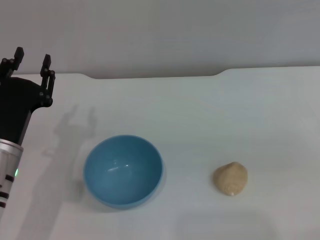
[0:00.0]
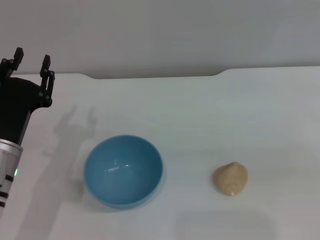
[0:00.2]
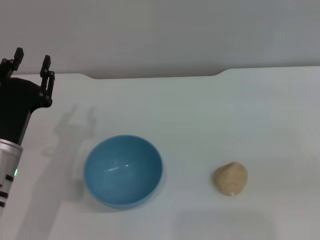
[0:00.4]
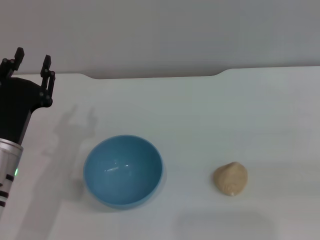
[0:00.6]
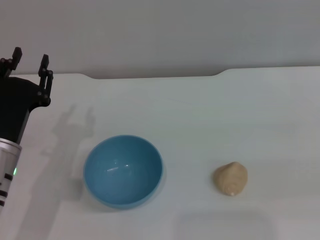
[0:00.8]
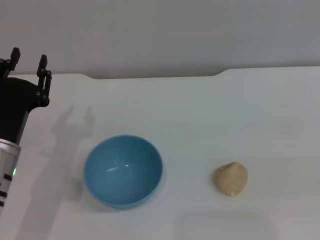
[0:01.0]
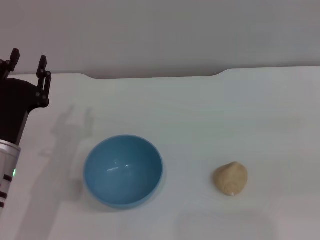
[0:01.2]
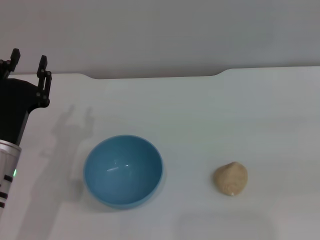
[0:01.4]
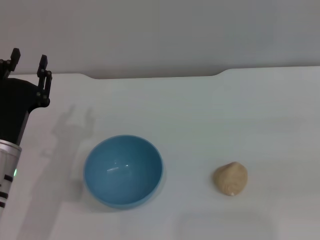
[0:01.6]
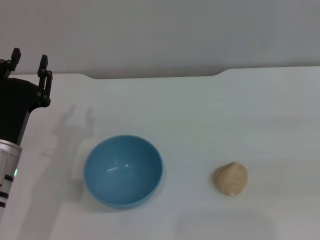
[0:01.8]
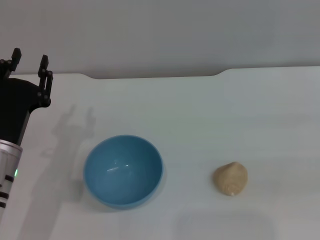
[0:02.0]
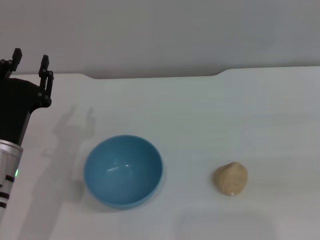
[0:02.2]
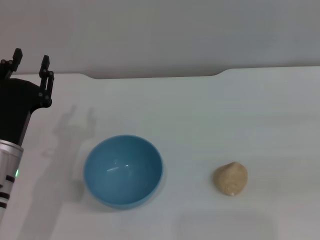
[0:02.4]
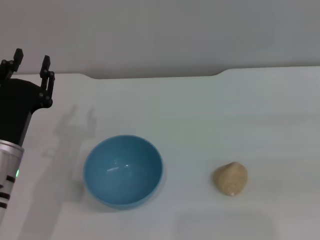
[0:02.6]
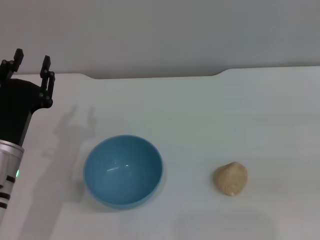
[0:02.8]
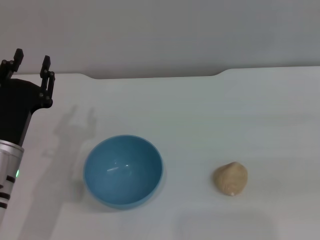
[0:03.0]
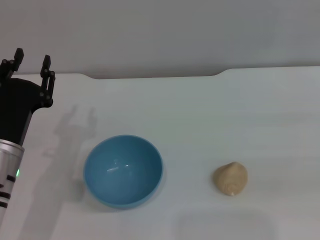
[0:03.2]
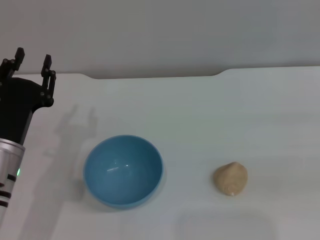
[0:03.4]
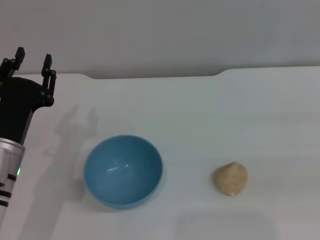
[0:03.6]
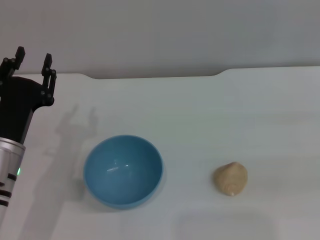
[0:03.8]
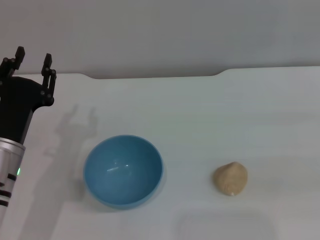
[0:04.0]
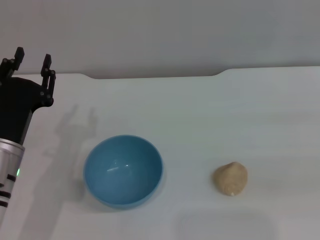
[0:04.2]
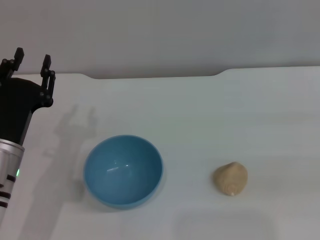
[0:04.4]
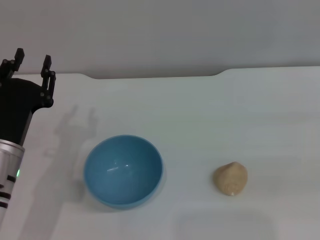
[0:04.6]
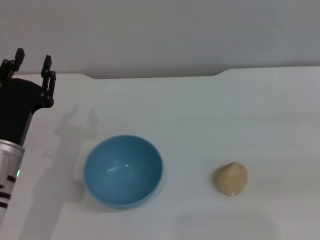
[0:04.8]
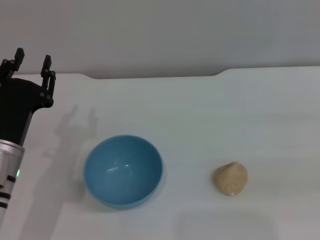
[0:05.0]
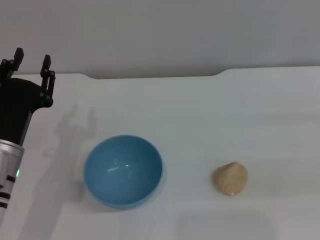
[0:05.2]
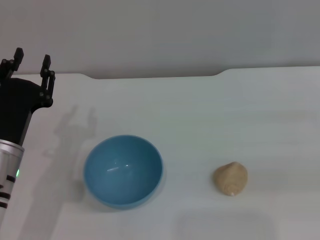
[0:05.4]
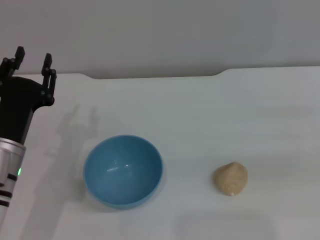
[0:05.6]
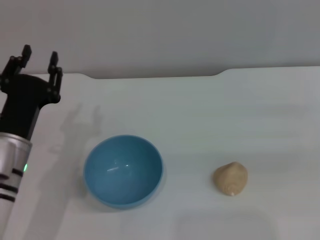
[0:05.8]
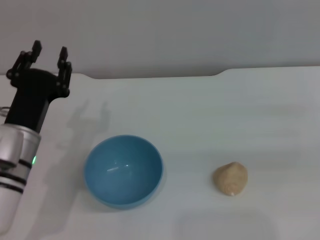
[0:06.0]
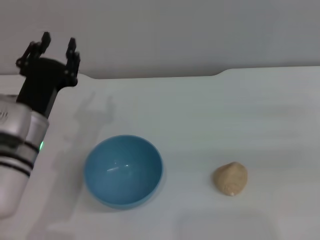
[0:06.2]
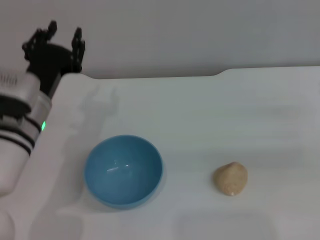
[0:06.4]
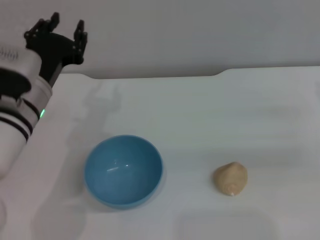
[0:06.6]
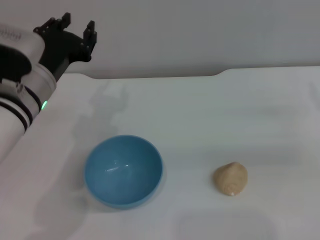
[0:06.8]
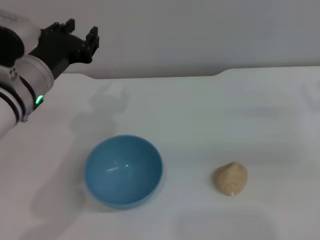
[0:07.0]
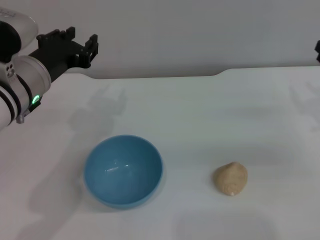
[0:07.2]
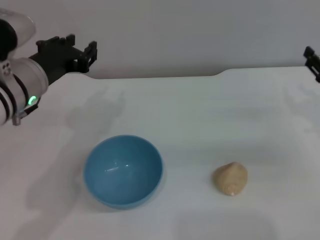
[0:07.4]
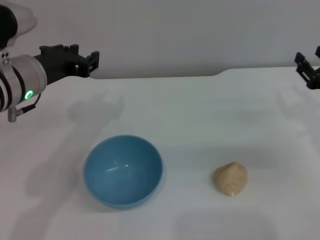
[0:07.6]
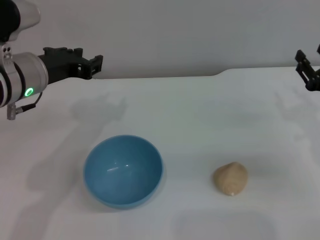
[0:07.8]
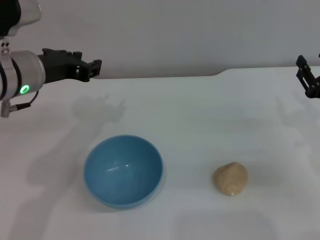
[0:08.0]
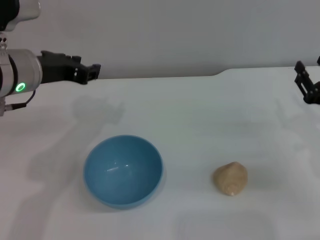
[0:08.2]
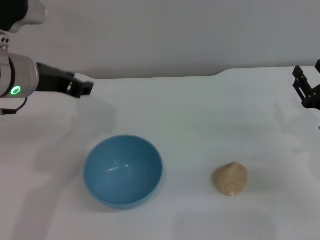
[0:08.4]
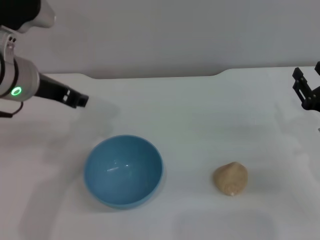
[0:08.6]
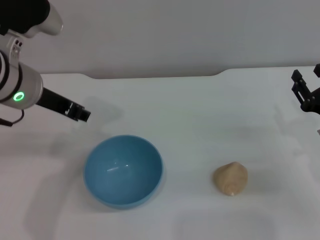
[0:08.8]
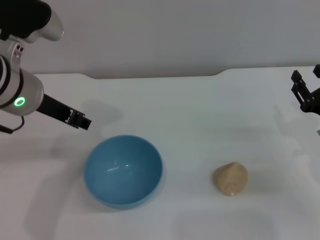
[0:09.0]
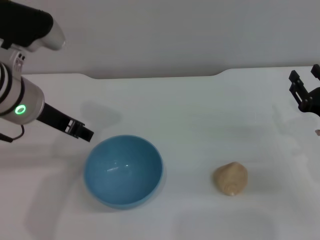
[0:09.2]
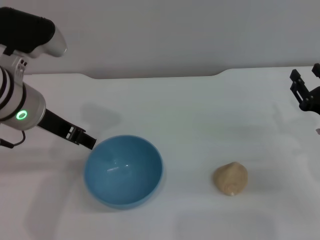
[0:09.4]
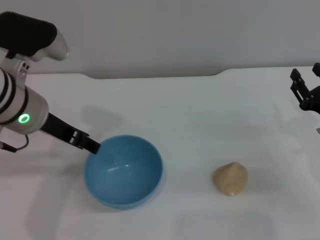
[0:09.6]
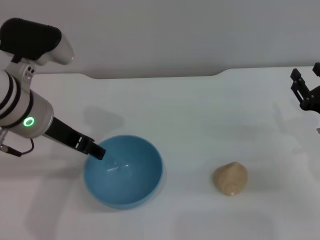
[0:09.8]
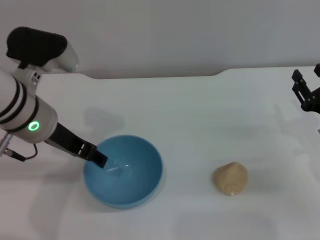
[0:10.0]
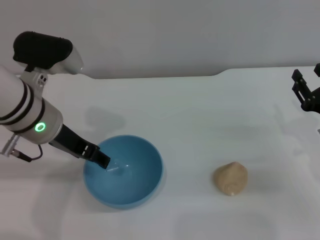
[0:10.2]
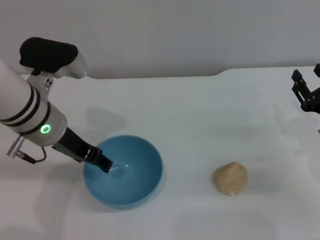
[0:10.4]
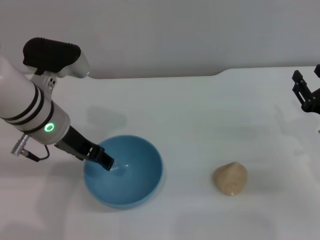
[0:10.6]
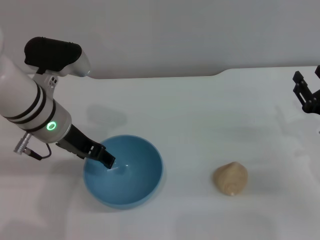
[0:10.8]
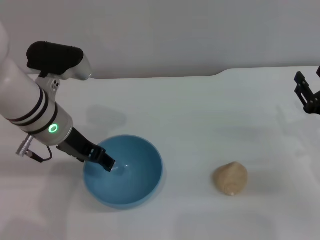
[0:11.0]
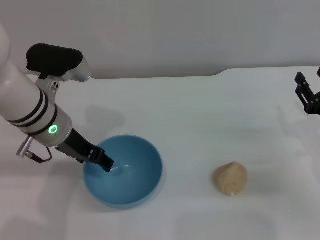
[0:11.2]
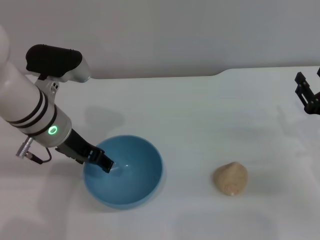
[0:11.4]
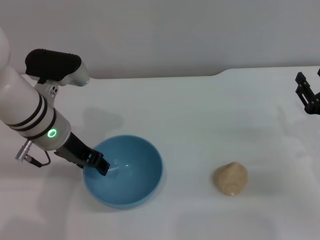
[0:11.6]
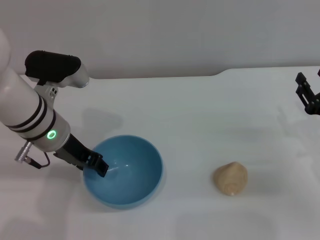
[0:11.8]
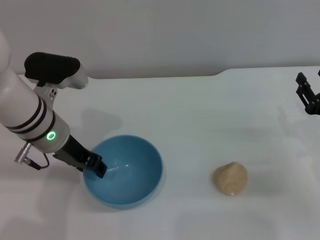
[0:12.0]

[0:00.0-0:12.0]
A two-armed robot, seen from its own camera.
Task of the whole recording: put the egg yolk pastry into the blue bowl and pour it out repeatedly.
0:01.6 to 0:03.0: The grippers make only small movements.
0:03.0 to 0:04.4: The two grippers keep their place.
0:06.0 to 0:07.6: The right gripper shifts some 10 cm to the left and downward. Meanwhile the left gripper is displaced upward and forward by about 10 cm.
0:07.6 to 0:09.0: The right gripper changes place by about 5 cm.
0:09.0 to 0:10.4: The left gripper travels downward by roughly 5 cm, and opens up.
0:10.4 to 0:12.0: The grippers move only a little.

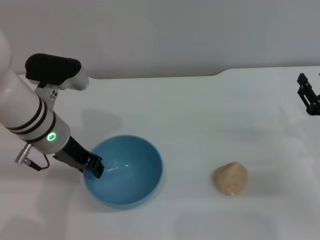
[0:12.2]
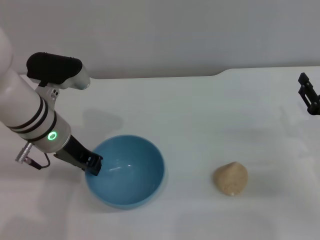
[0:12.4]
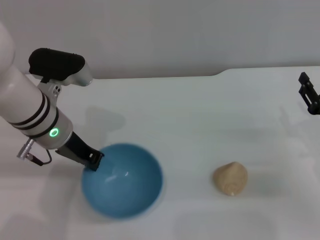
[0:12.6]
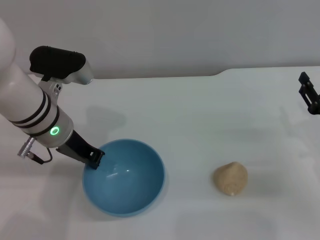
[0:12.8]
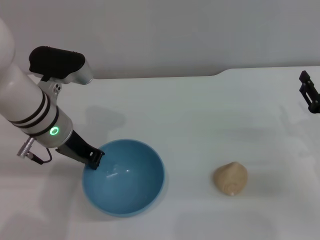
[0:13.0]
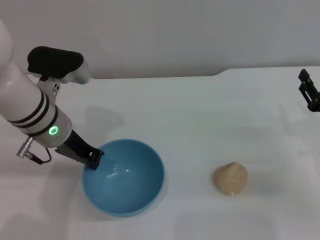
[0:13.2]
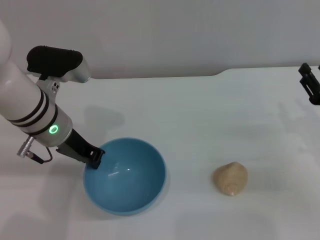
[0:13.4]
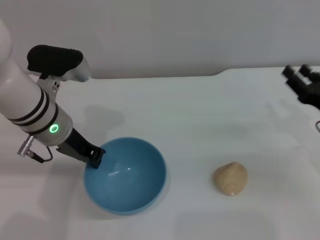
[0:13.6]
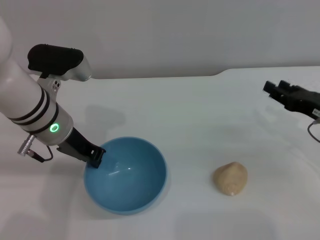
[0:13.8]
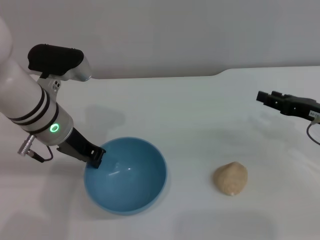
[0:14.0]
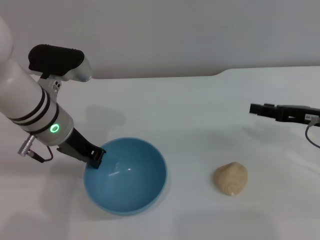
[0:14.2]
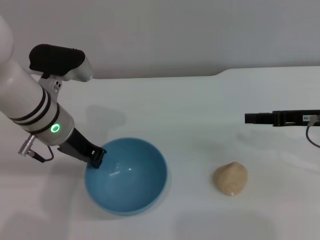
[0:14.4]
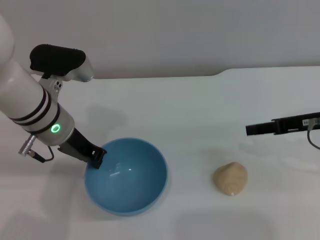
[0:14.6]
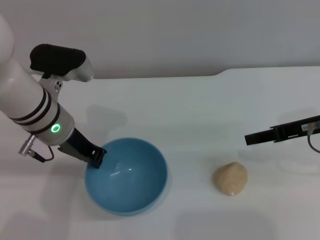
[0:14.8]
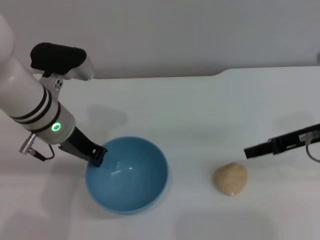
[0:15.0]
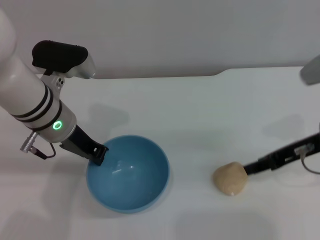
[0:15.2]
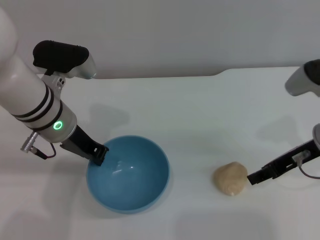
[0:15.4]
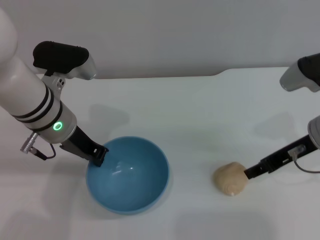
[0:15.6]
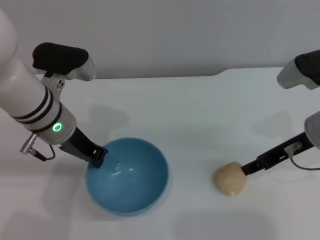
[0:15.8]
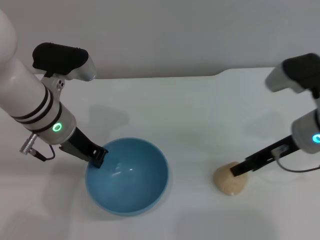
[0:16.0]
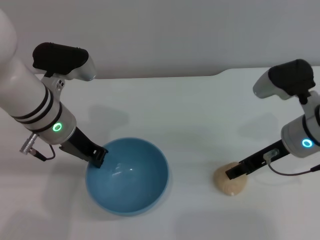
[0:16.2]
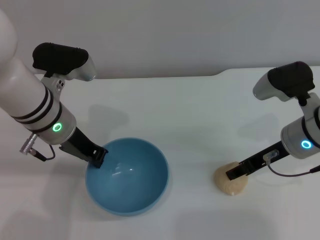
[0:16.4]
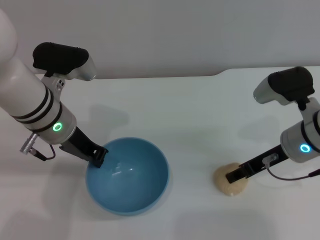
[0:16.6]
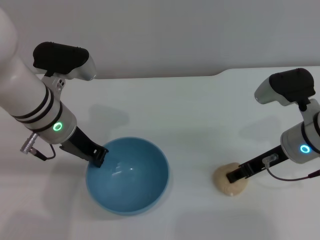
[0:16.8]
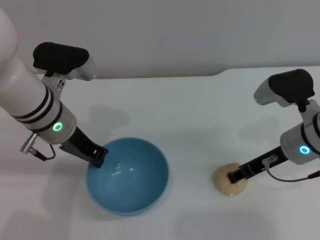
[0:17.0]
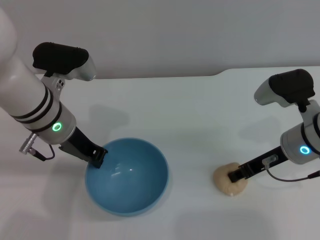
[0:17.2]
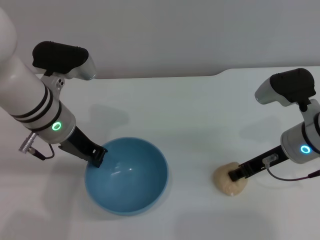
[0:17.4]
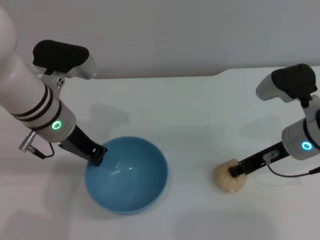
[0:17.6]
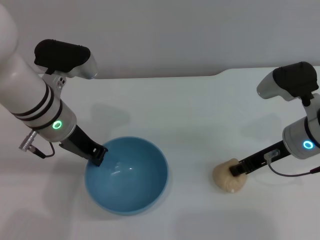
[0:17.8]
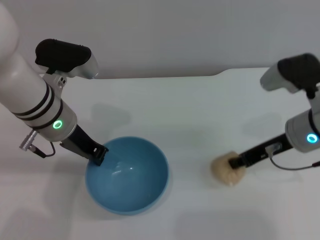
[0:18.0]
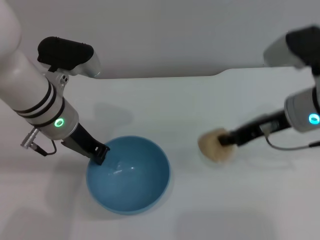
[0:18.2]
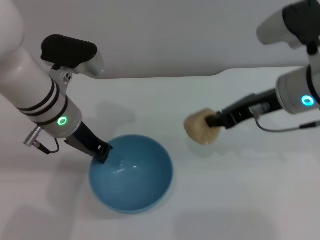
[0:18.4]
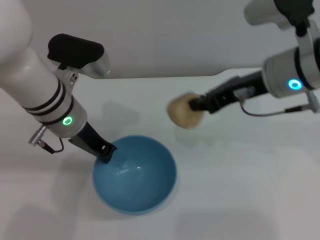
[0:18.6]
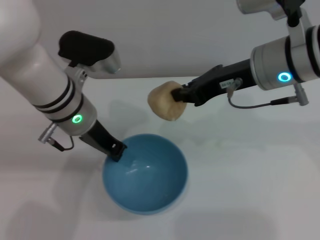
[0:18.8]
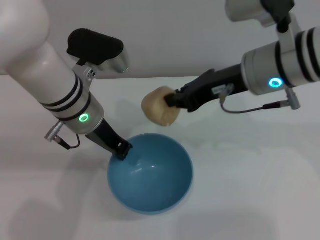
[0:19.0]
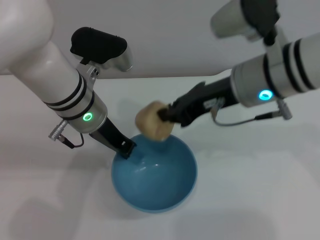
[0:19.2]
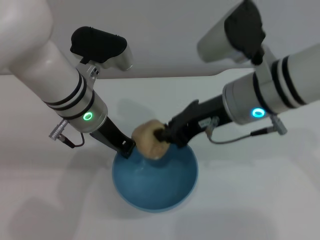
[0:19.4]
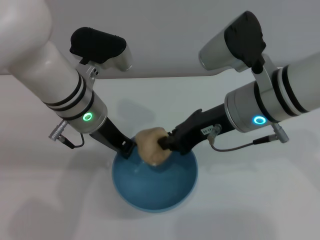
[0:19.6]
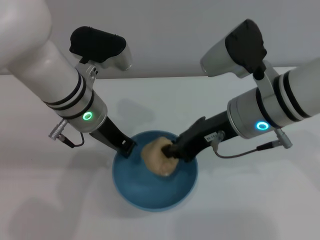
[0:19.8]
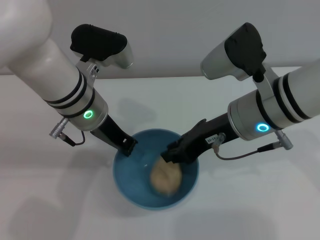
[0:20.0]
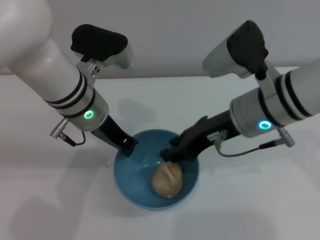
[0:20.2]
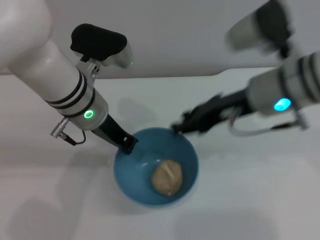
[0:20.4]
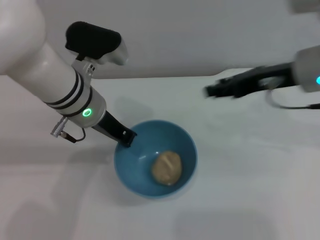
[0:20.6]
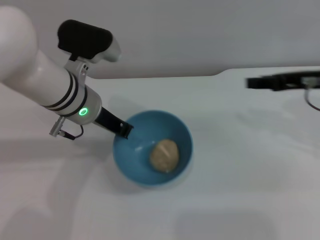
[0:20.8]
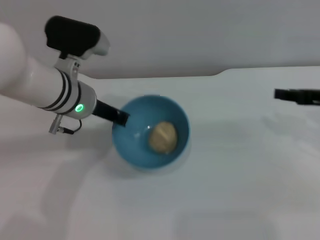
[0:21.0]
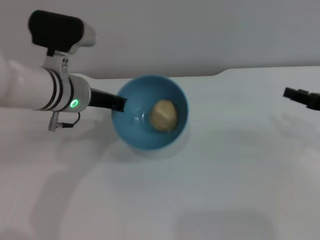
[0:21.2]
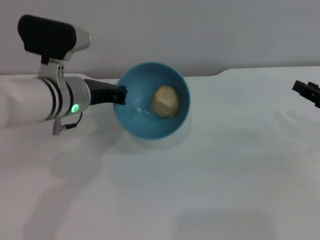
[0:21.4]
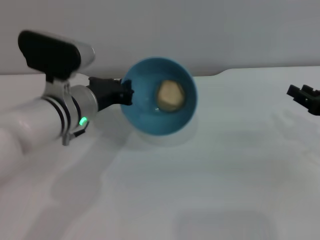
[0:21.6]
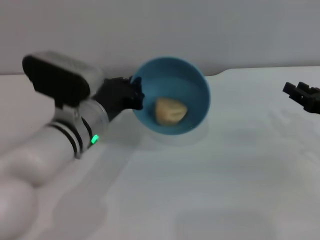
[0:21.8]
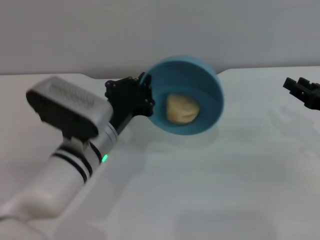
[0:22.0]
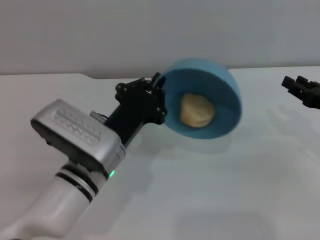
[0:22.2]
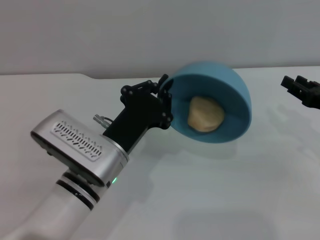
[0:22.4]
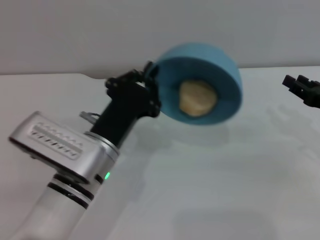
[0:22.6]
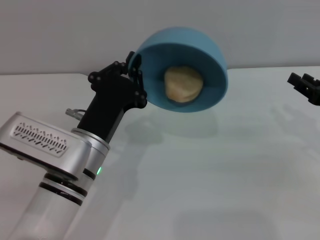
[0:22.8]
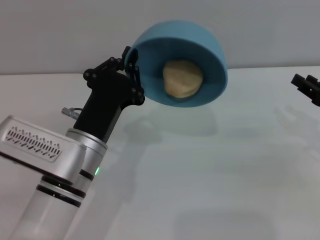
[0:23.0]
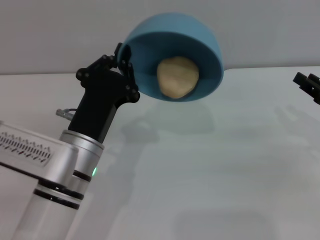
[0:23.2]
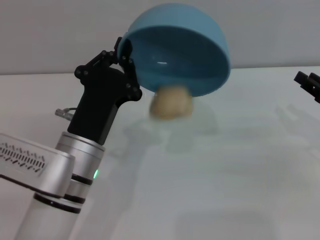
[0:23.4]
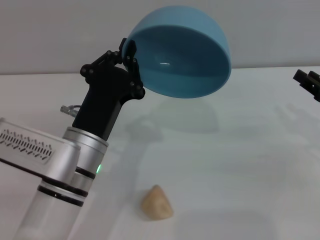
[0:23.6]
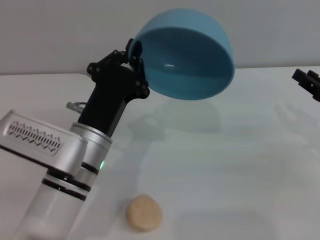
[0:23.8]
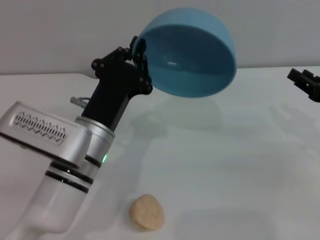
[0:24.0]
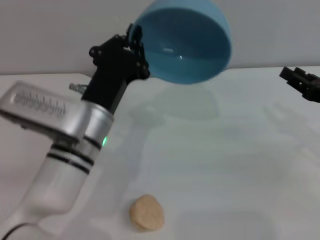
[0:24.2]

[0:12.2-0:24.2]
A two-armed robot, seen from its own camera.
Task of the whole recording: put the egg yolk pastry into the blue bowl and pour it out repeatedly.
Step, 0:18.0 to 0:18.4: Pick up the egg yolk pastry with the right gripper.
Step, 0:18.6 to 0:20.2: Place the egg yolk pastry into the bowl.
Step, 0:20.6 to 0:24.0: Pour the egg yolk pastry out of bowl.
0:12.2 to 0:13.8: The left gripper closes.
0:13.8 to 0:15.2: The right gripper travels upward and to the left by roughly 10 cm.
0:15.2 to 0:16.6: The right gripper moves some 5 cm.
0:16.6 to 0:18.2: The right gripper is displaced upward by about 5 cm, and closes up.
0:18.2 to 0:19.8: The right gripper heads to the left, covering roughly 10 cm.
0:19.8 to 0:21.2: The right gripper goes some 20 cm to the right, and opens its fingers.
0:21.2 to 0:22.6: The left gripper moves backward and downward, roughly 15 cm.
